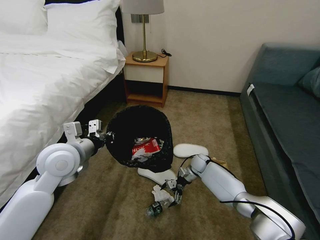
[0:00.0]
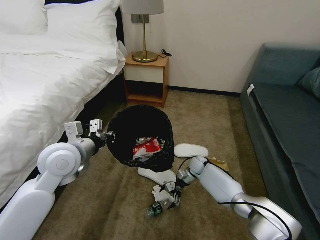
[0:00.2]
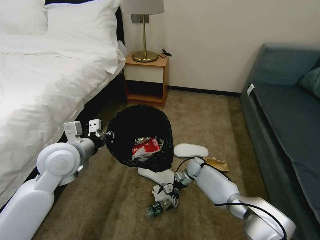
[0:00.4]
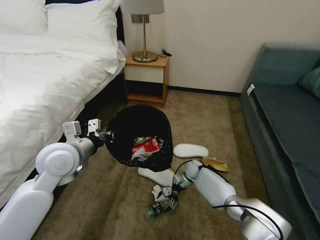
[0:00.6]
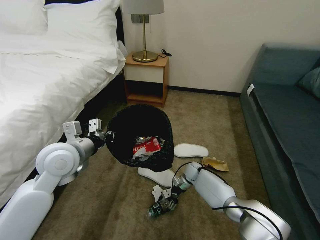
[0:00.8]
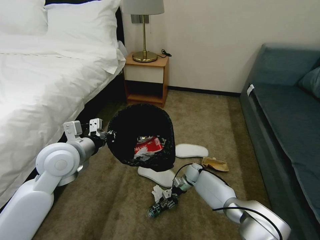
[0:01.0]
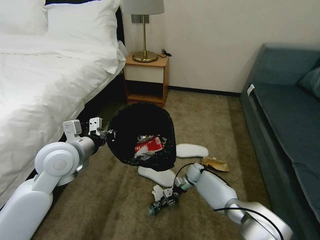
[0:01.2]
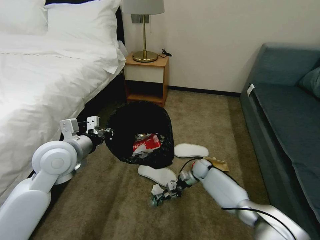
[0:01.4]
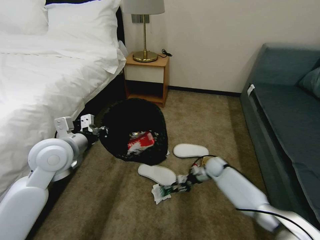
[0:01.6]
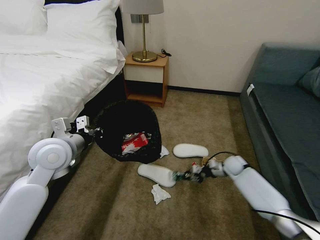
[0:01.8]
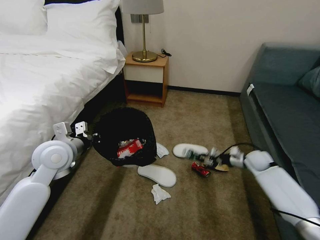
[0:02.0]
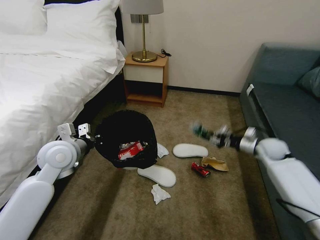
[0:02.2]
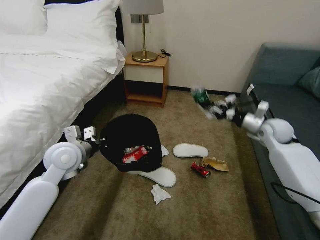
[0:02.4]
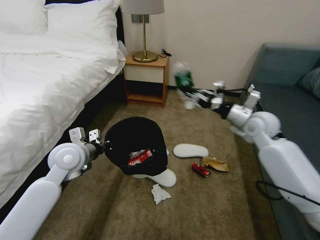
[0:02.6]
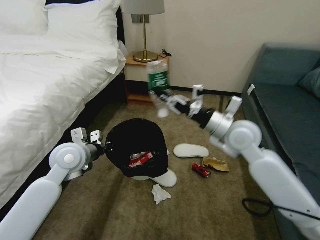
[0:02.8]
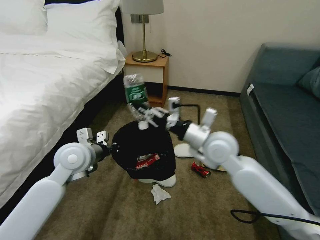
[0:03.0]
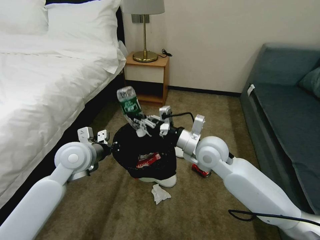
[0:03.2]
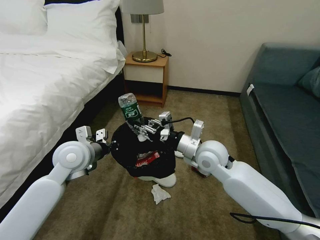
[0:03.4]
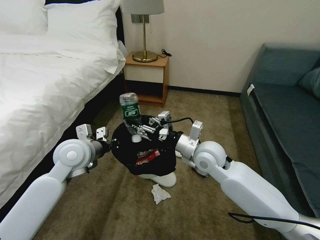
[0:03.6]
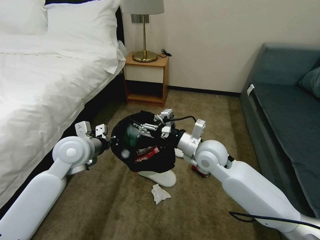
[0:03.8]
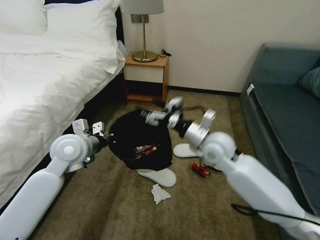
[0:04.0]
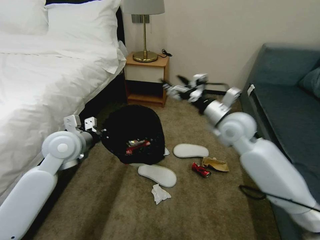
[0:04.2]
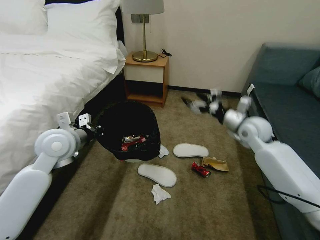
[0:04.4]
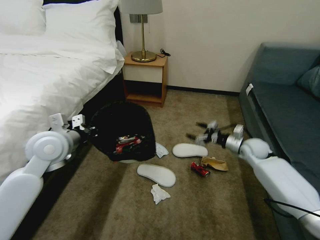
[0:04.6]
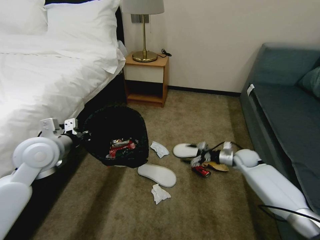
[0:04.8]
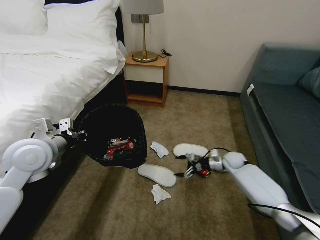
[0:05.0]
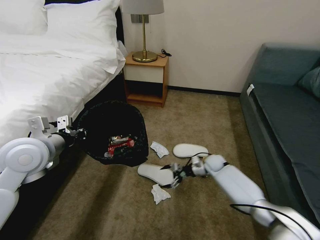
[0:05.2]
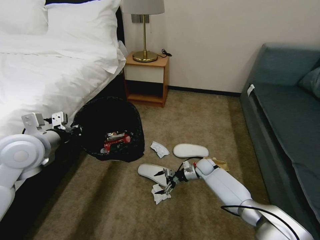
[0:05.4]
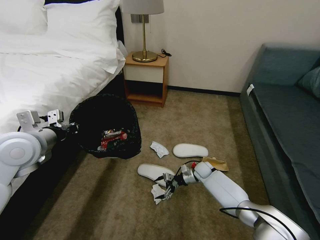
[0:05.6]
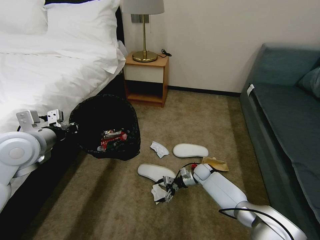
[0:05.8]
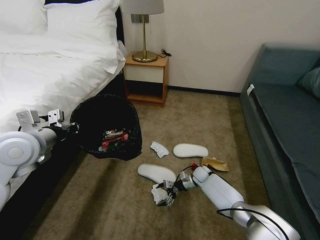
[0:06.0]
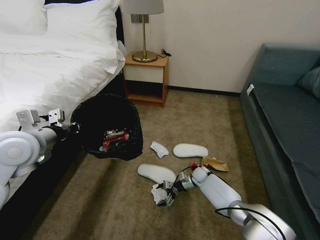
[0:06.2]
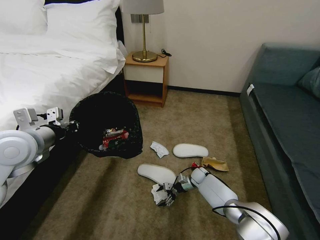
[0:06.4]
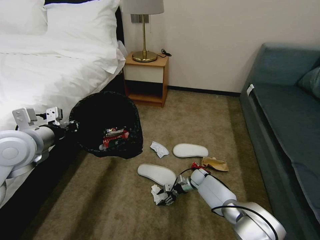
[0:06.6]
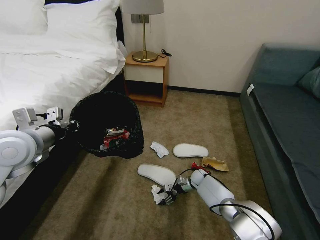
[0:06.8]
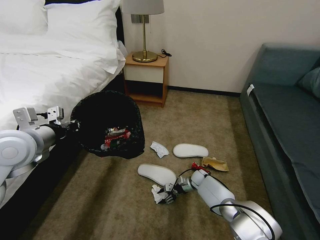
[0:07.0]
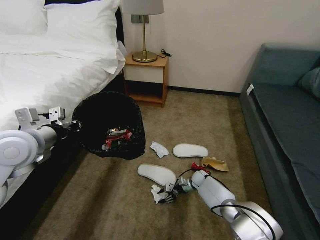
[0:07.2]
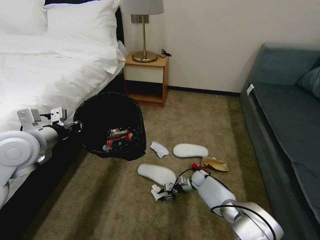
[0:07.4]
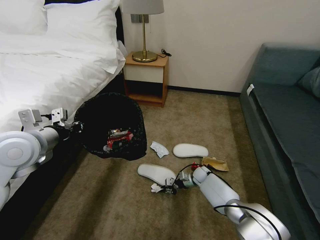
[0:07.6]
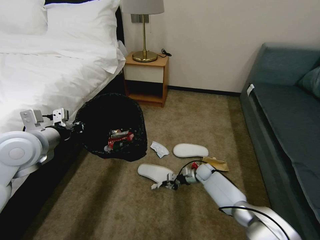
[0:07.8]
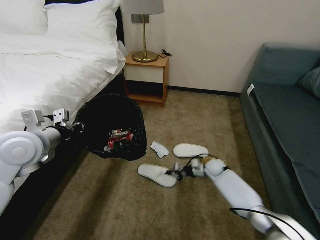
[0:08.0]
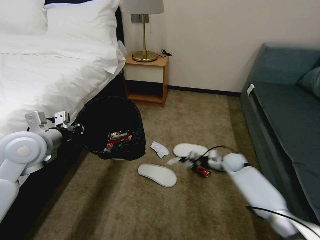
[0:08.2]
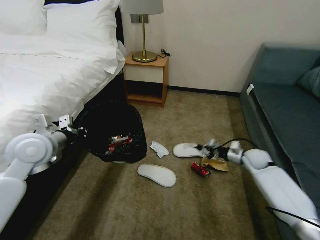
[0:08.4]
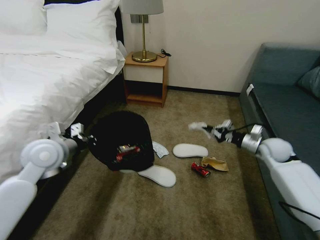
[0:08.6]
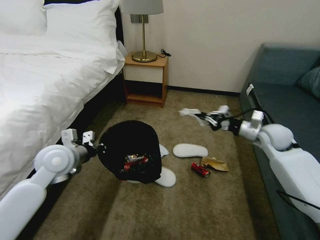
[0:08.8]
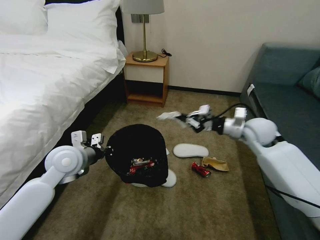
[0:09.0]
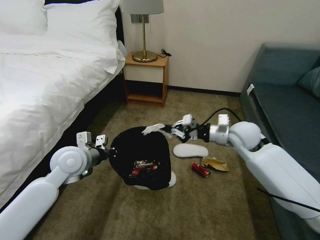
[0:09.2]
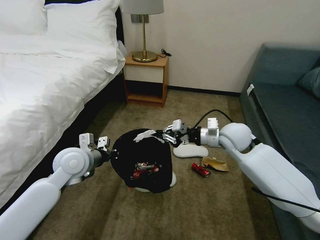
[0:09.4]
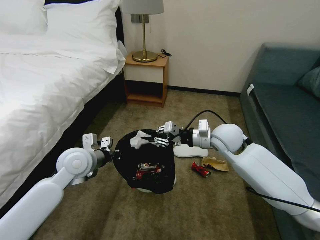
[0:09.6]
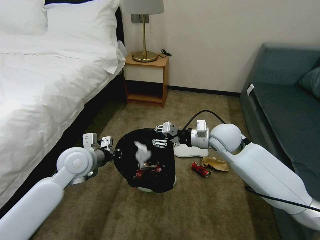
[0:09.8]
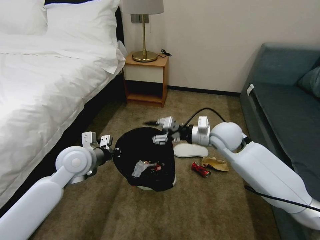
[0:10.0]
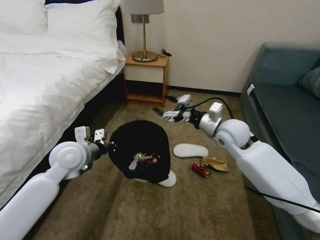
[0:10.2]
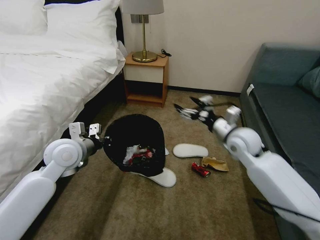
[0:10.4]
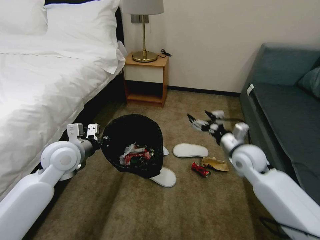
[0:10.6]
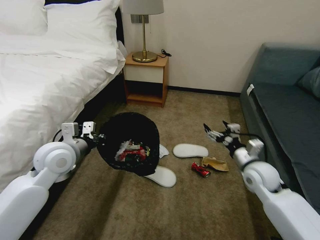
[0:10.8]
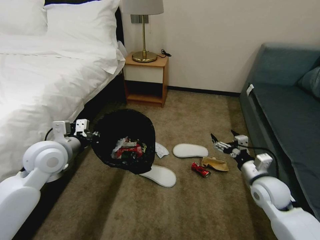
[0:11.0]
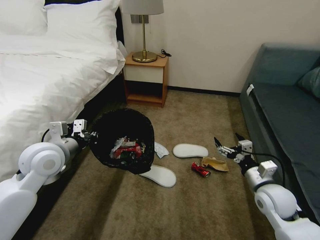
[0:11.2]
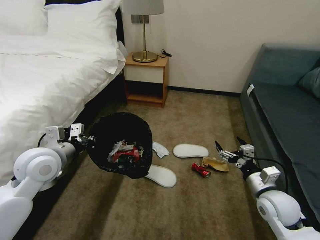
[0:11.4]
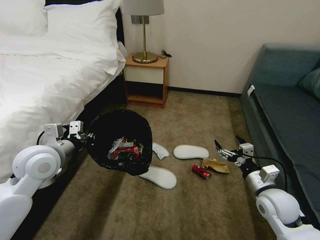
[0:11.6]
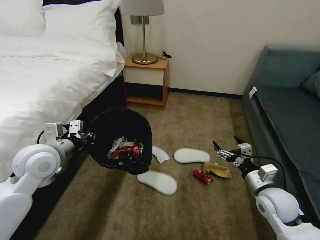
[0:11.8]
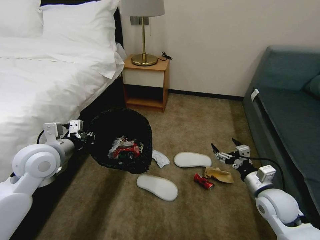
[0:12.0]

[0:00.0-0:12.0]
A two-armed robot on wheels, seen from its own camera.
Task of the whole recording: Pick up the trash bin, then pick up the garbage on the floor and place it into the trash bin.
0:00.0 to 0:01.6: The right gripper is displaced to the right by approximately 10 cm, and closes.
0:01.6 to 0:03.0: The right gripper goes some 30 cm upward and to the left. The left gripper moves approximately 5 cm.
0:03.0 to 0:04.4: The left gripper changes place by roughly 5 cm, while the right gripper heads to the right and forward, covering some 20 cm, and opens.
0:04.4 to 0:06.0: The right gripper shifts approximately 35 cm downward, while the left gripper goes approximately 5 cm to the left.
0:06.0 to 0:07.6: The right gripper closes.
0:07.6 to 0:09.0: The left gripper shifts roughly 10 cm downward and to the right; the right gripper heads upward, covering approximately 35 cm.
0:09.0 to 0:10.4: The right gripper opens up.
0:10.4 to 0:12.0: The right gripper travels backward, downward and to the right by approximately 20 cm. The left gripper shifts by about 5 cm.

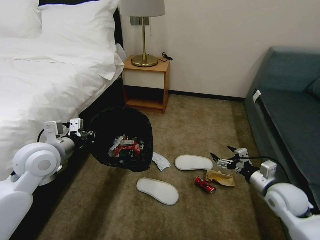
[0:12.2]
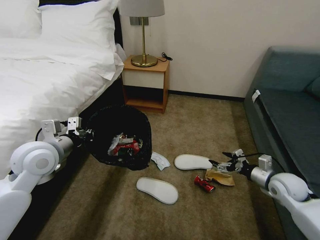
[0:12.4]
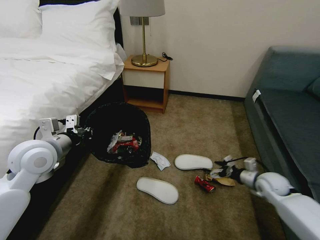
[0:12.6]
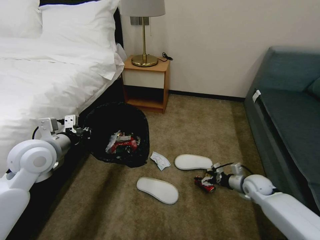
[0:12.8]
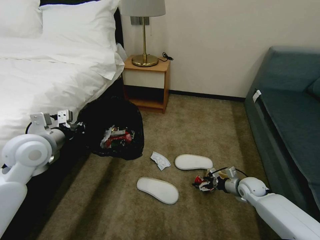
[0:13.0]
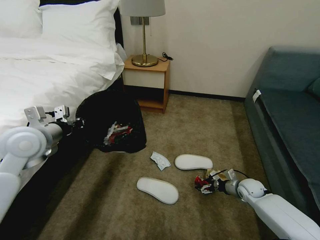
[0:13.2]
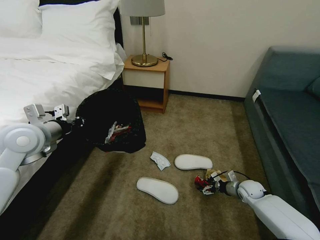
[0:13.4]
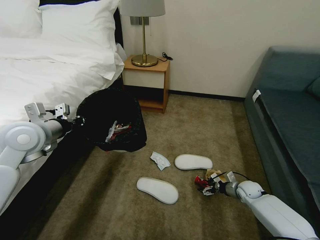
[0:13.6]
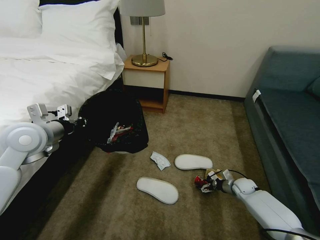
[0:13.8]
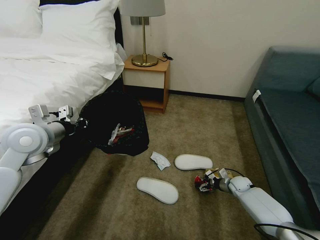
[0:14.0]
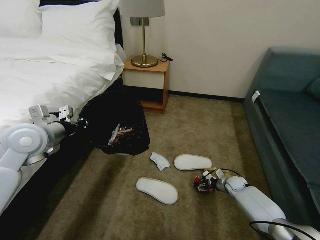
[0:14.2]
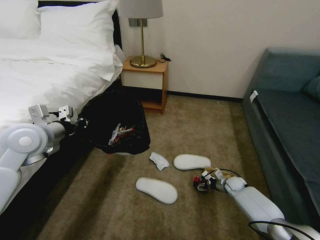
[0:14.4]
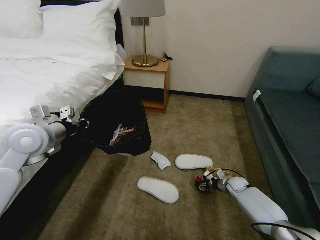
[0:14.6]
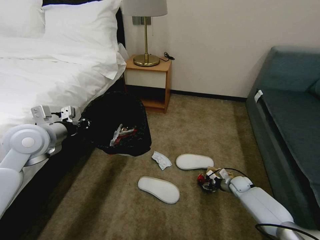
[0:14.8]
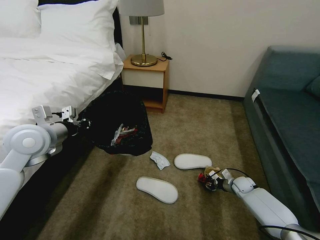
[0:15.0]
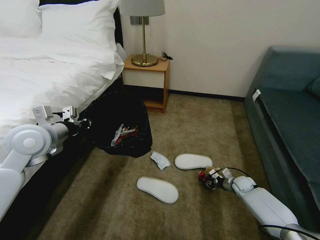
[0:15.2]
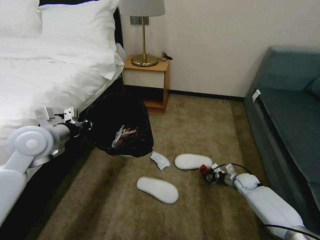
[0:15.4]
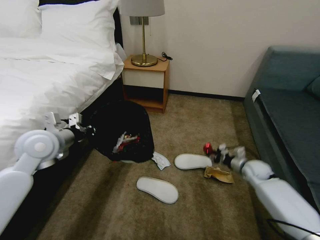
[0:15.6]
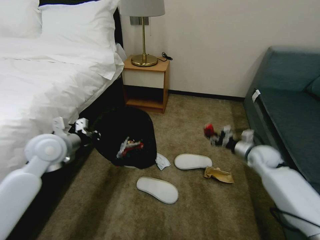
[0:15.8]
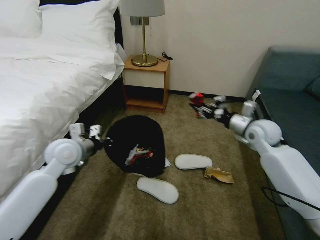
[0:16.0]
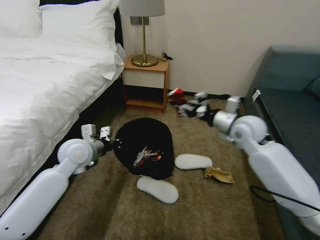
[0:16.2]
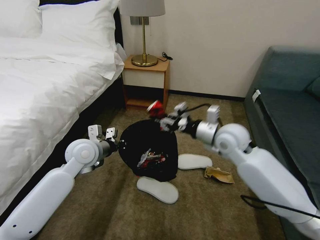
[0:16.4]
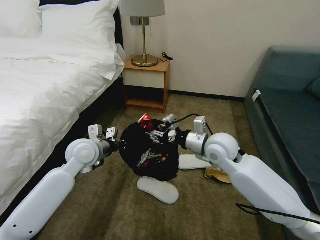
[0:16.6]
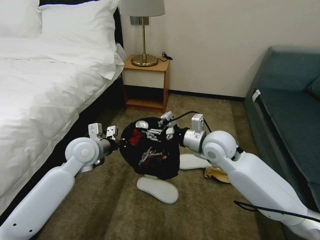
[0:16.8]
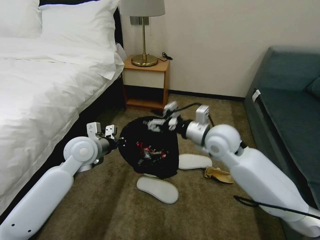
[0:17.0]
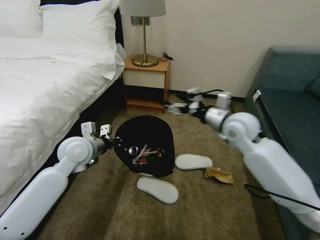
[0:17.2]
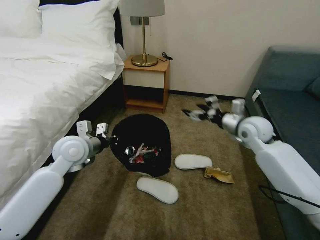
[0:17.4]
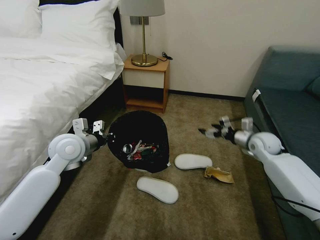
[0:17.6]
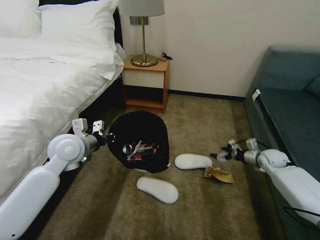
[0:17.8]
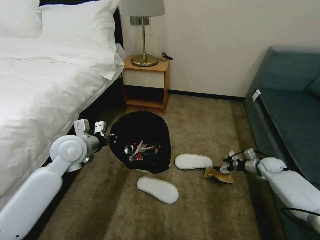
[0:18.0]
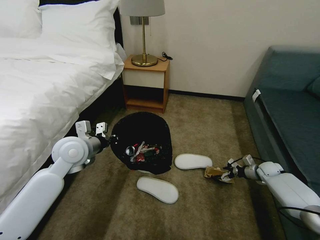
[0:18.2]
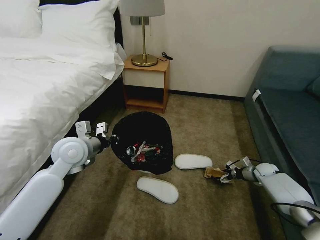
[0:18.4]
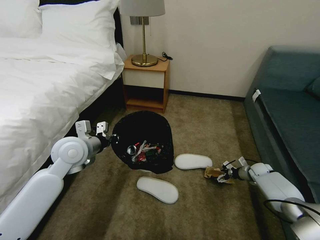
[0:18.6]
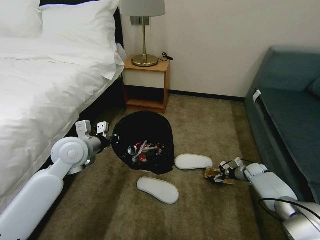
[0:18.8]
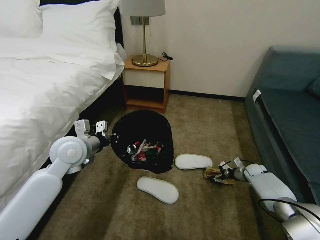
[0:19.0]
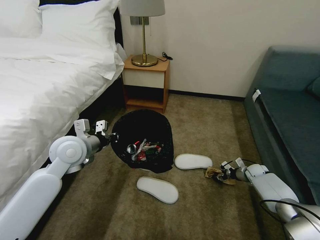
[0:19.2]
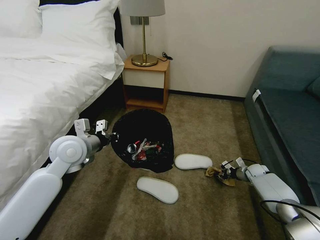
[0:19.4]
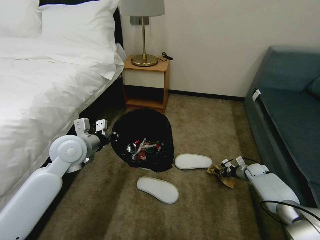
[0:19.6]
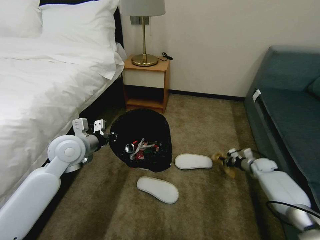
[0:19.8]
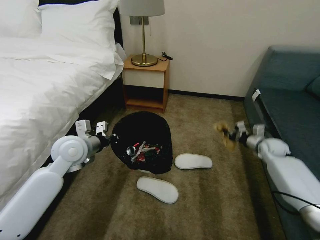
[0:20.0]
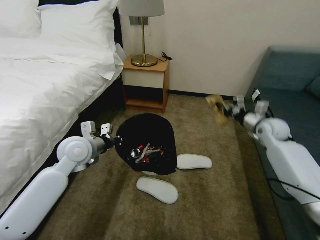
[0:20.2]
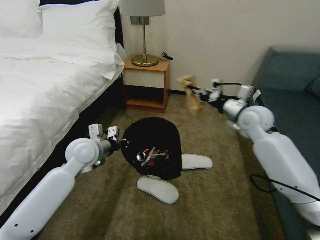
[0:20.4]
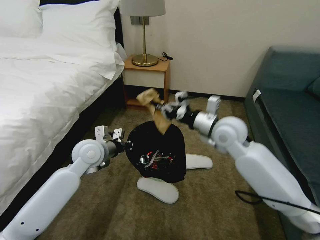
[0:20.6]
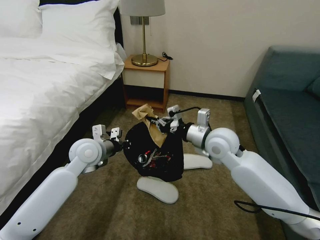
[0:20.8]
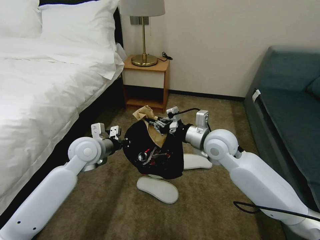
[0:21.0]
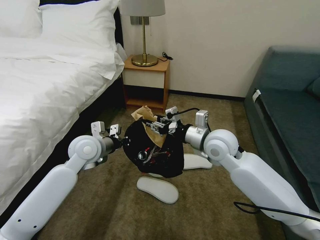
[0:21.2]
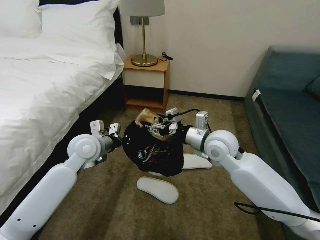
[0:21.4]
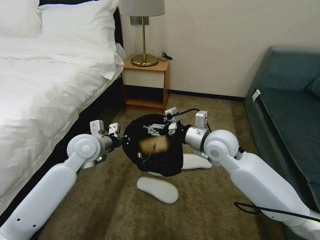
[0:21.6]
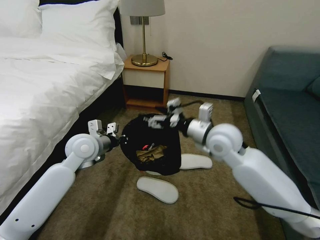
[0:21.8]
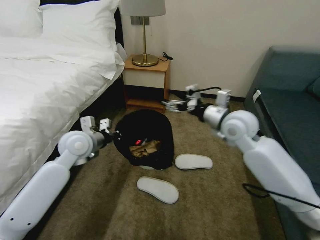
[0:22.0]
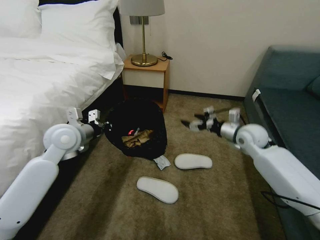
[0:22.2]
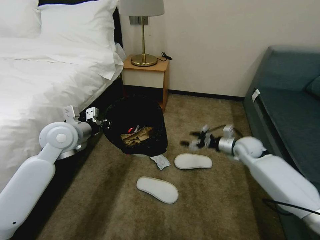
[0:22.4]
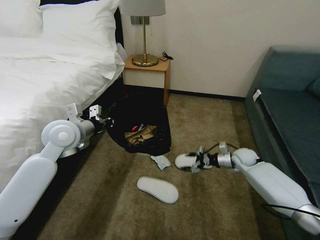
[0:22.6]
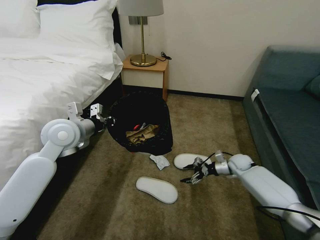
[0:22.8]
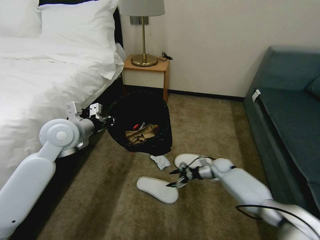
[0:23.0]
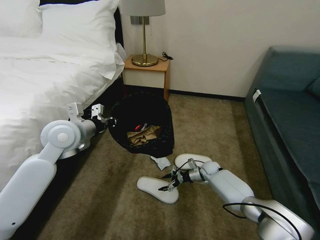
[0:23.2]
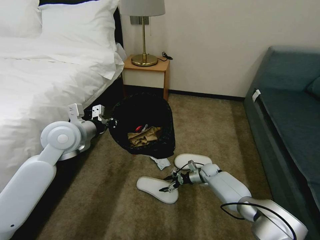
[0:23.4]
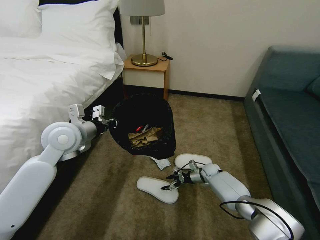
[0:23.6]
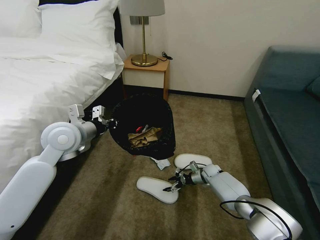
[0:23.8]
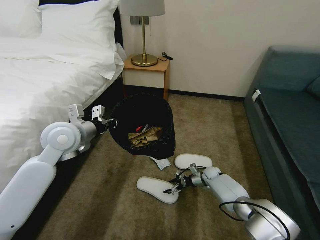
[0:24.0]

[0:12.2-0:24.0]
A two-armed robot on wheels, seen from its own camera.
Task of the whole recording: Pick up the trash bin, then pick up the garbage on the floor and place it into the trash bin.
0:12.2 to 0:13.6: The left gripper changes place by approximately 5 cm; the right gripper is displaced downward and forward by some 20 cm.
0:13.6 to 0:15.2: The right gripper closes its fingers.
0:15.2 to 0:16.6: The right gripper is displaced upward and to the left by approximately 40 cm, while the left gripper goes roughly 15 cm to the right and downward.
0:16.6 to 0:18.2: The right gripper is displaced to the right and downward by roughly 40 cm, and opens up.
0:18.2 to 0:19.6: The right gripper shifts by approximately 5 cm, and closes up.
0:19.6 to 0:21.0: The right gripper heads upward and to the left, covering about 40 cm.
0:21.0 to 0:22.6: The right gripper travels downward, to the right and forward by some 30 cm, and opens. Meanwhile the left gripper is displaced upward by about 5 cm.
0:22.6 to 0:24.0: The right gripper heads downward and to the left, covering about 20 cm.
